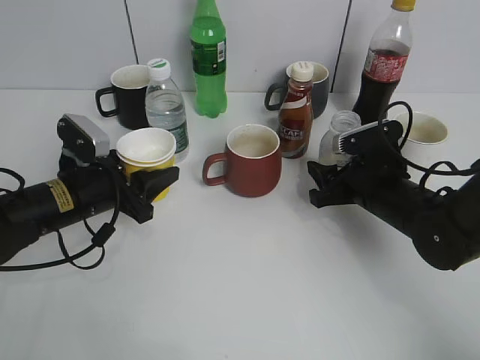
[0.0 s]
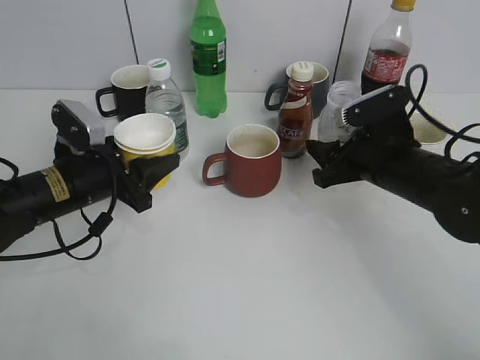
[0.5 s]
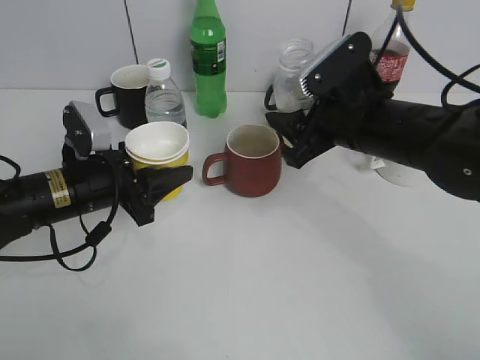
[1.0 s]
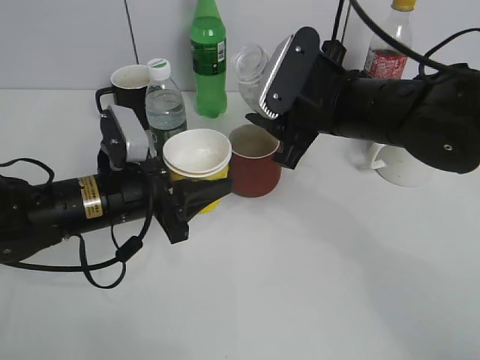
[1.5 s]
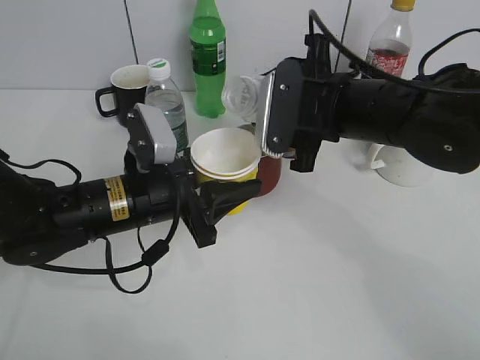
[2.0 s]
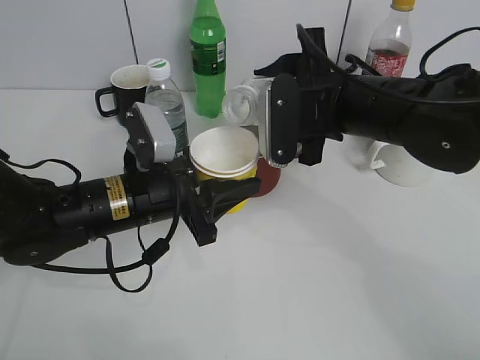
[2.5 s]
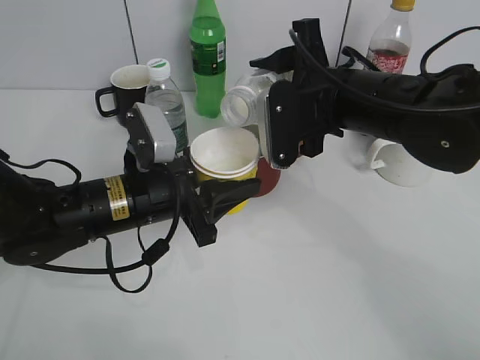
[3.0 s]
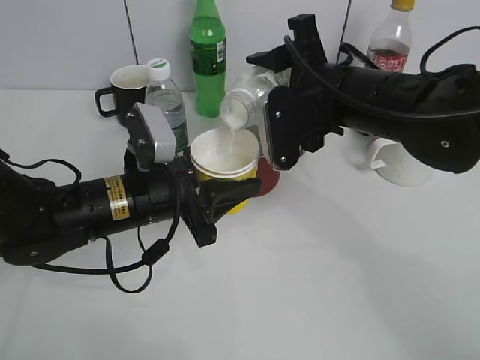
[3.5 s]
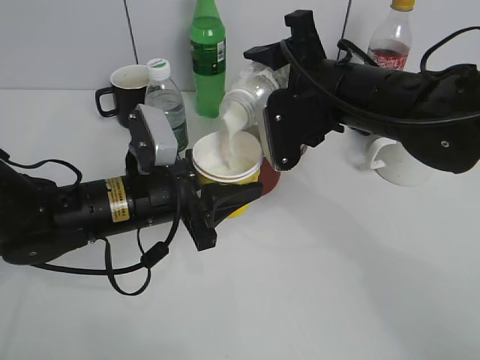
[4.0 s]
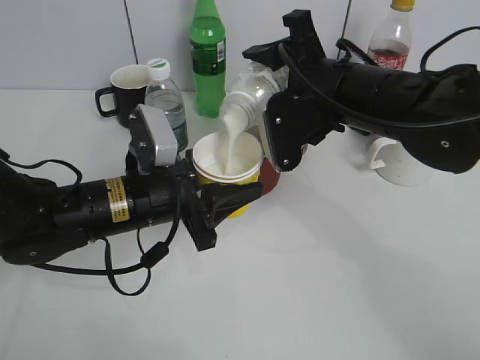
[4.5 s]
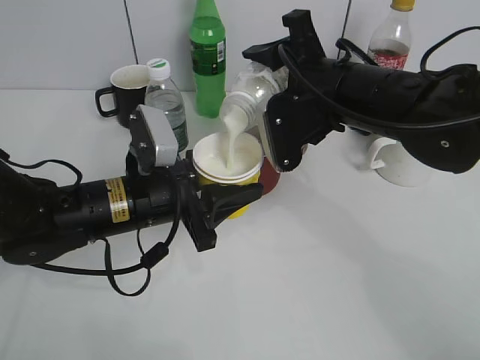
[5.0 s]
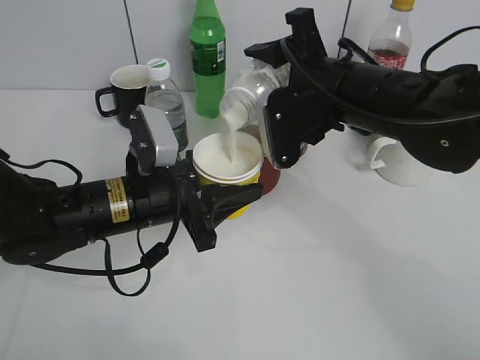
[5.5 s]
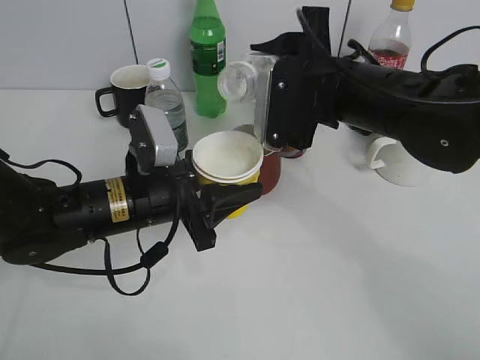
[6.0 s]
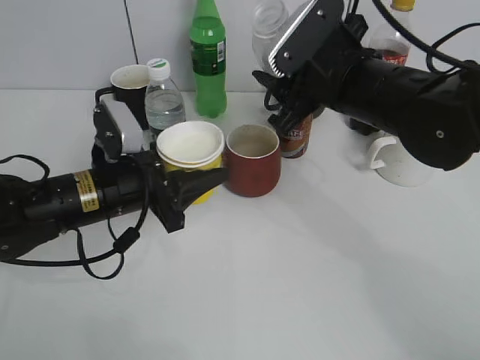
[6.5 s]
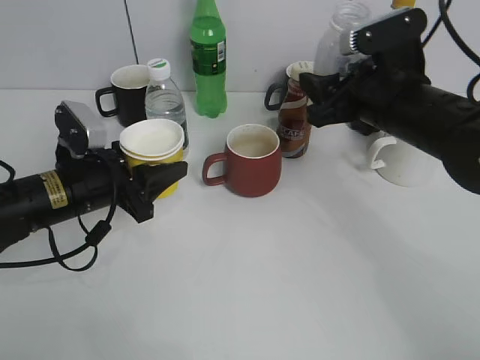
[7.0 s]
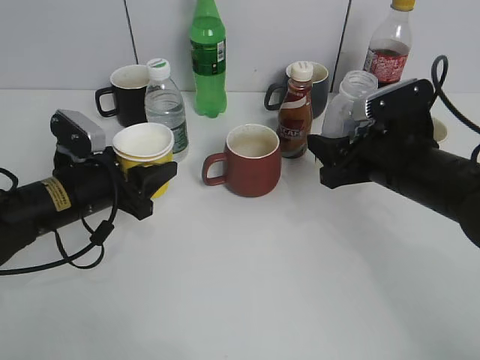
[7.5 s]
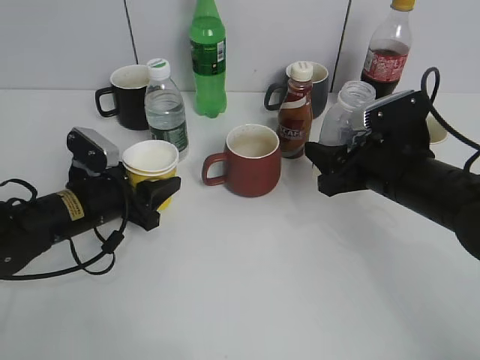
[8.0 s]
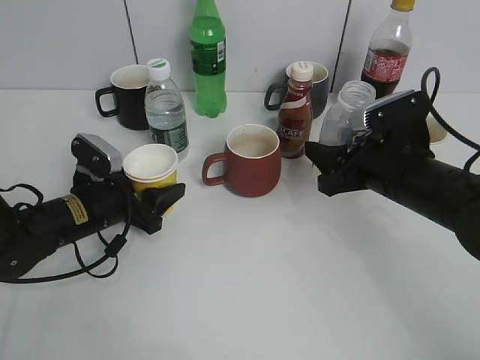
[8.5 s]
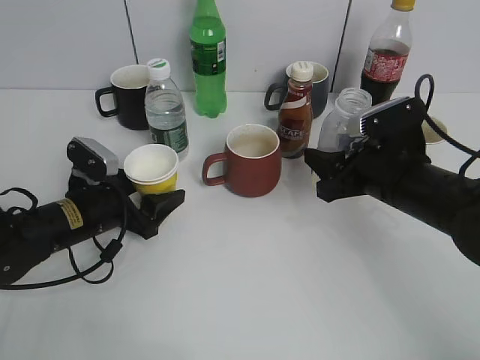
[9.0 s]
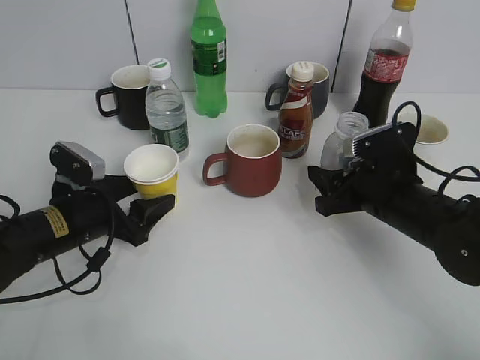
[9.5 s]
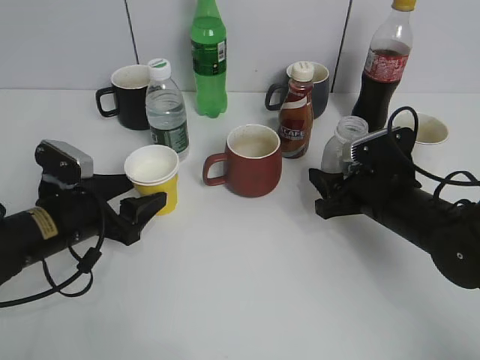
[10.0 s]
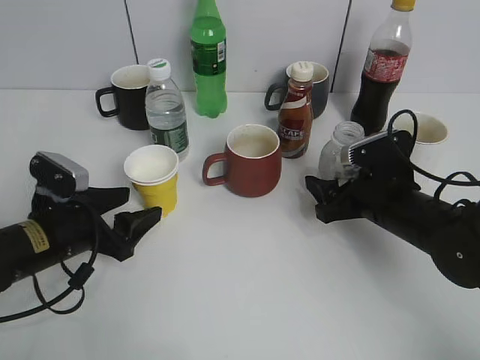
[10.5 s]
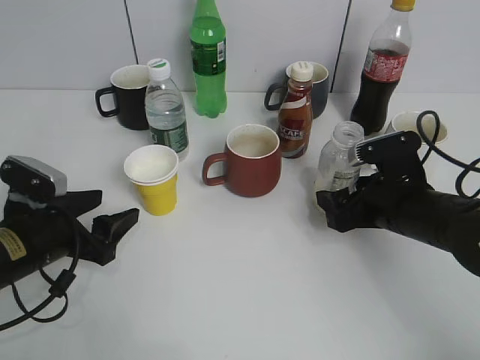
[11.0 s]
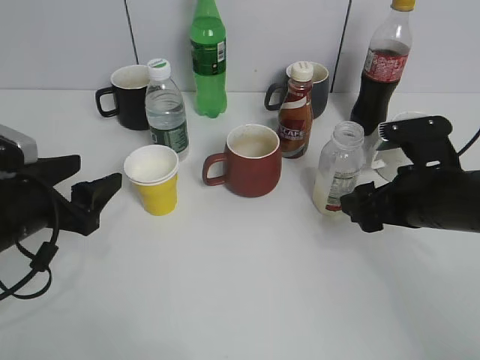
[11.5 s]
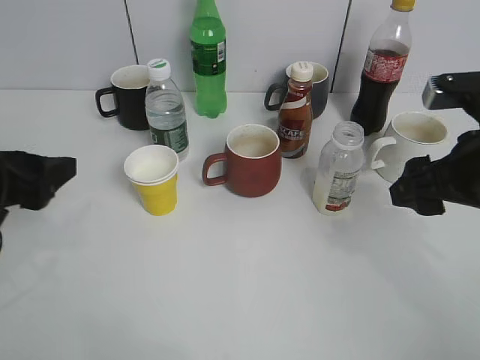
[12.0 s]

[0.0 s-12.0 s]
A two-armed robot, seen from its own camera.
Step, 0.5 to 6.0 s: Pour the yuexian Milk from bottle to cup with right gripper.
Step, 6.5 to 10.5 s: Place the yuexian Milk bottle on the table with right gripper.
0.0 to 2.0 s: The left gripper is displaced to the right by some 10 cm; the right gripper is displaced upward and to the left by roughly 15 cm.
4.0 to 6.0 s: There are only small adjustments of the grippers.
6.0 to 8.0 s: The right gripper moves downward and to the right, approximately 10 cm. Meanwhile the left gripper goes approximately 10 cm to the left and downward.
8.0 to 10.0 s: The right gripper travels downward by about 5 cm, while the left gripper opens up.
10.0 to 12.0 s: The two grippers go approximately 15 cm upward and backward. The right gripper opens up.

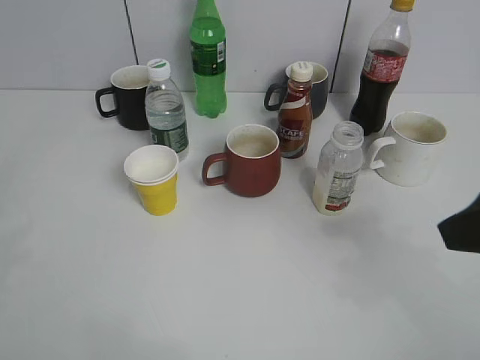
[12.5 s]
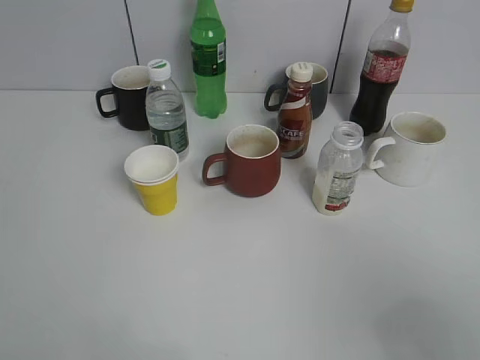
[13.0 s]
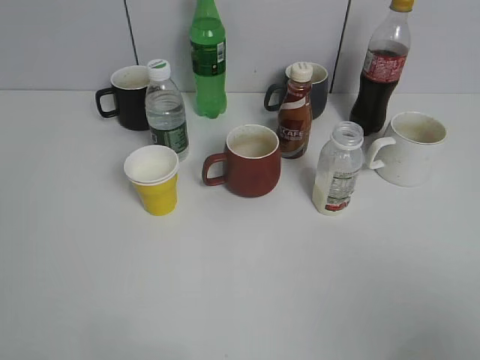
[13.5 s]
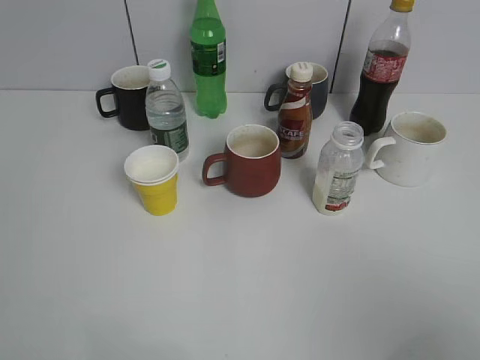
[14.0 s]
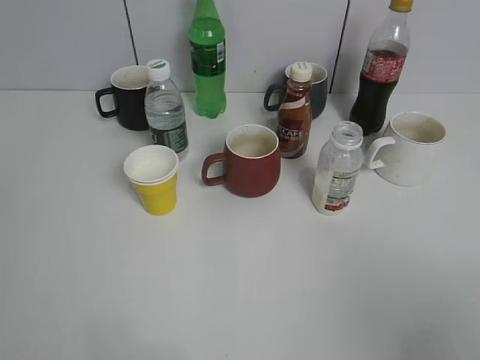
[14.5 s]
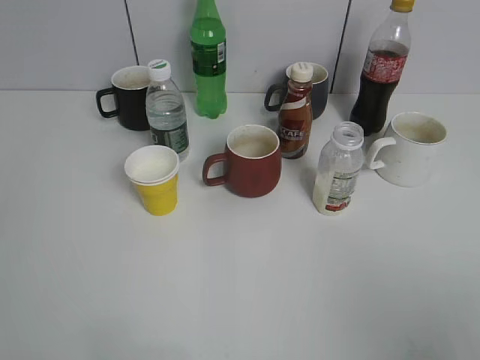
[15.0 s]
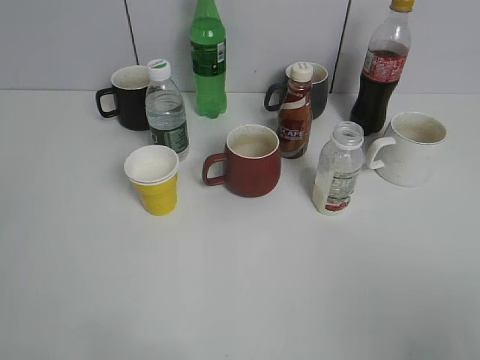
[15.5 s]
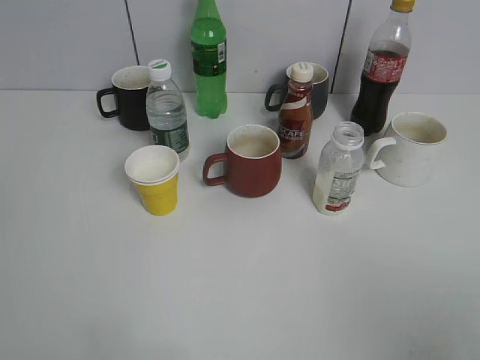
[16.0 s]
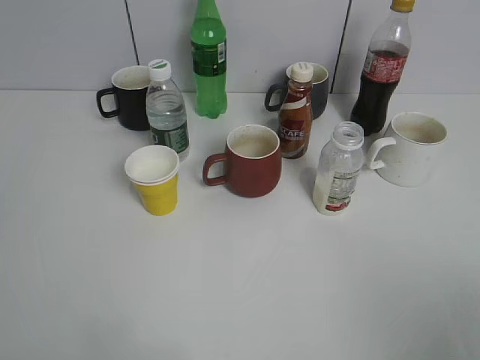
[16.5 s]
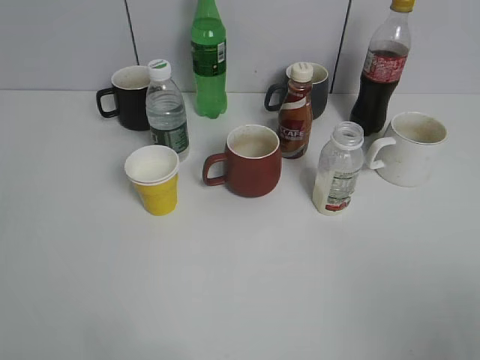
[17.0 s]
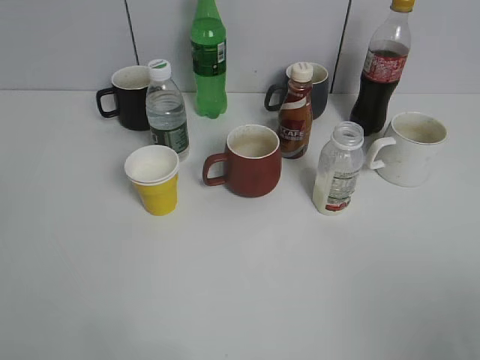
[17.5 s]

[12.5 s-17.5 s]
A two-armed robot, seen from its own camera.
12.5 to 15.0 s: The right gripper shifts about 15 cm backward.

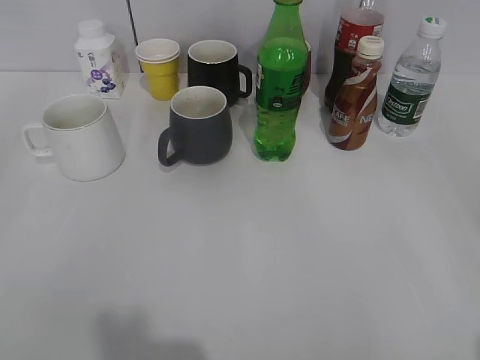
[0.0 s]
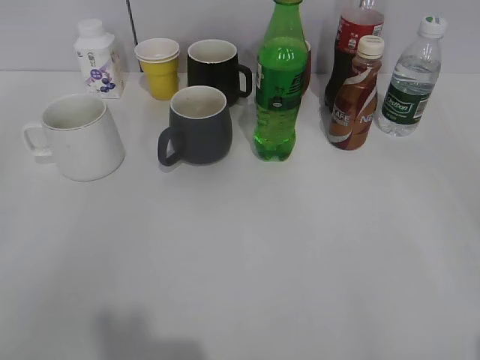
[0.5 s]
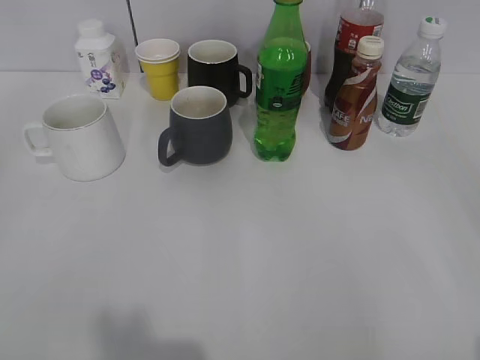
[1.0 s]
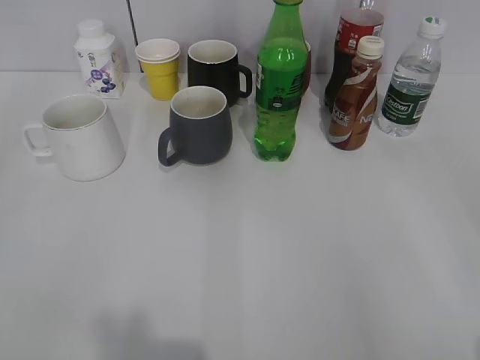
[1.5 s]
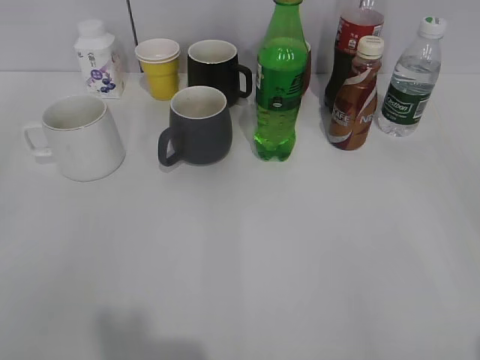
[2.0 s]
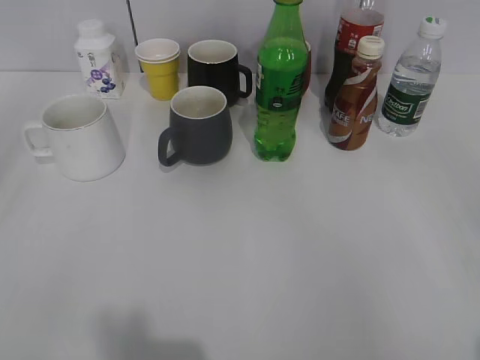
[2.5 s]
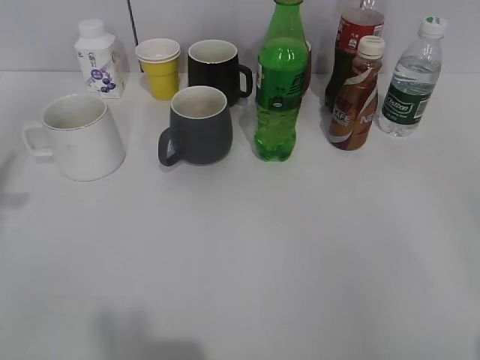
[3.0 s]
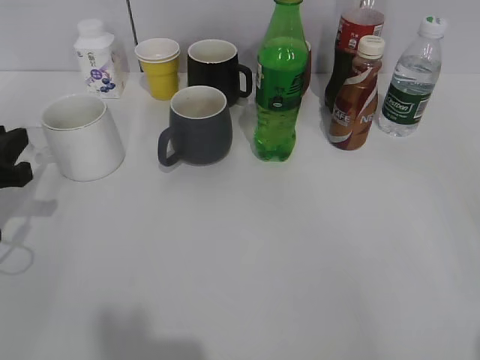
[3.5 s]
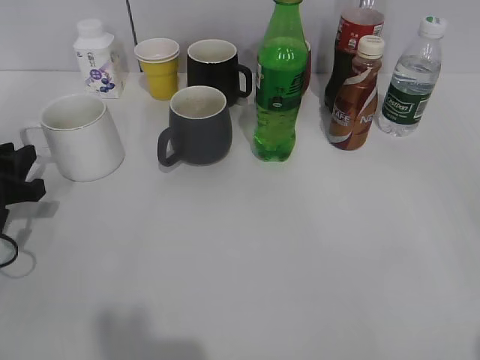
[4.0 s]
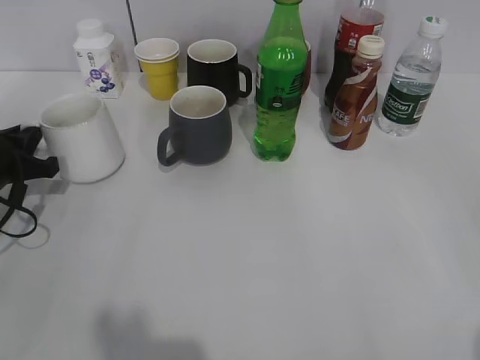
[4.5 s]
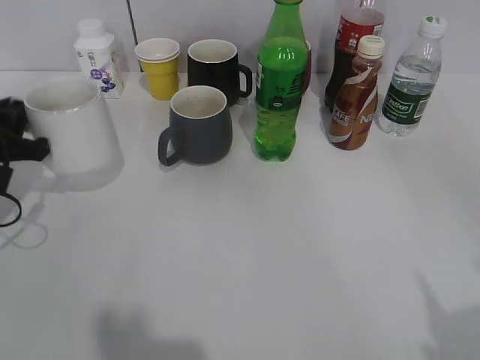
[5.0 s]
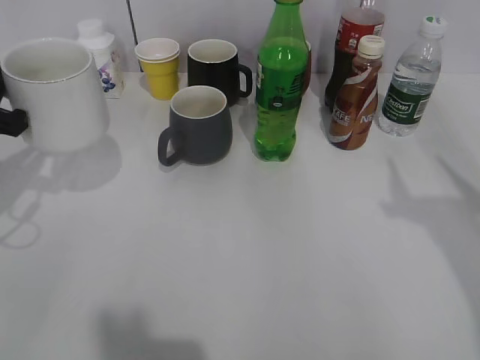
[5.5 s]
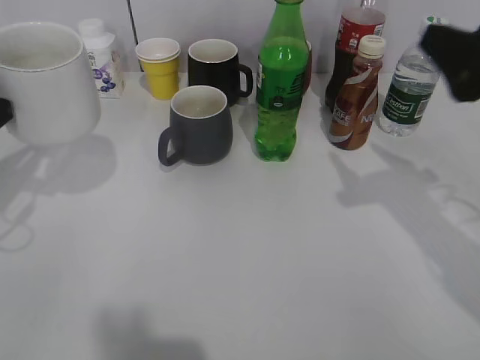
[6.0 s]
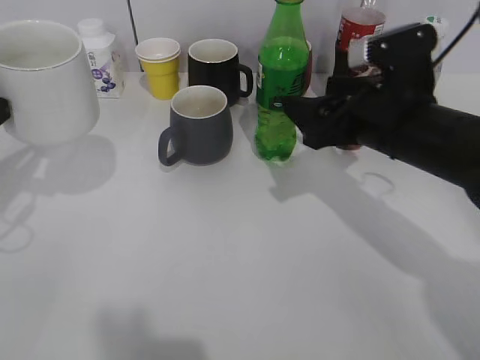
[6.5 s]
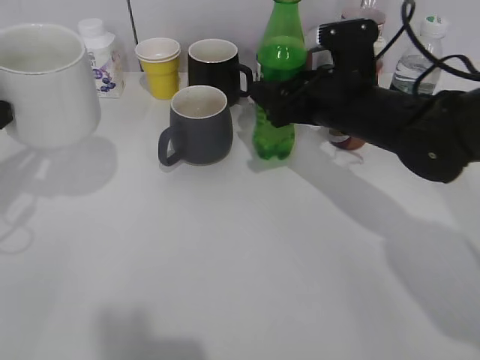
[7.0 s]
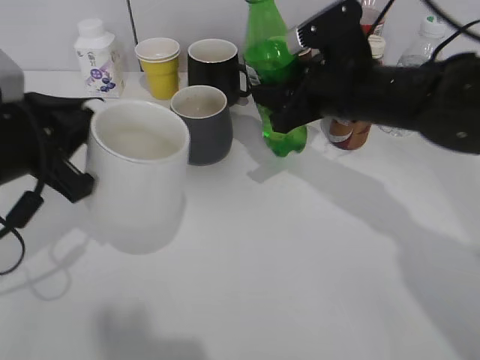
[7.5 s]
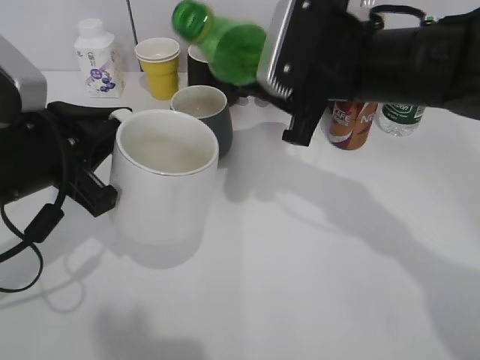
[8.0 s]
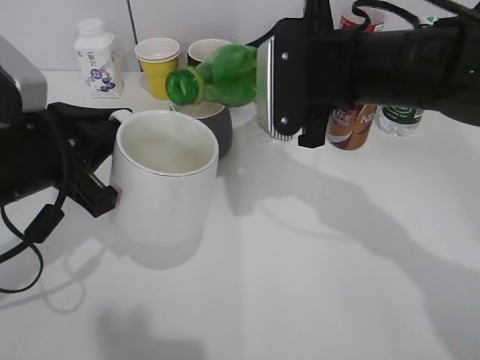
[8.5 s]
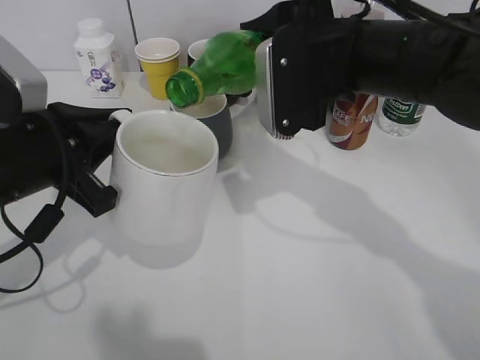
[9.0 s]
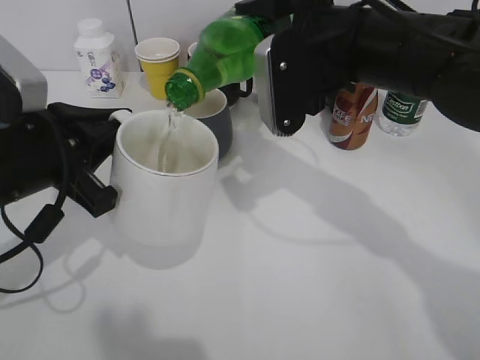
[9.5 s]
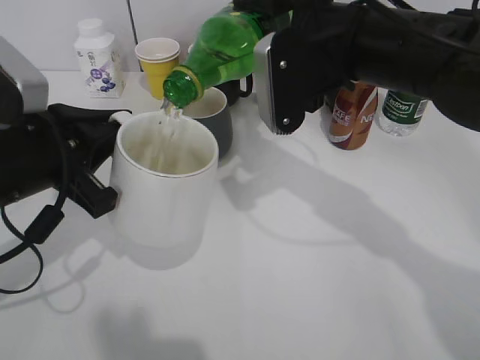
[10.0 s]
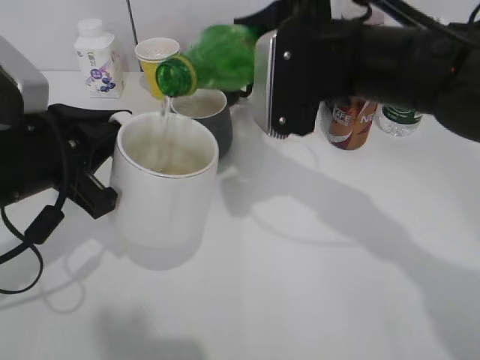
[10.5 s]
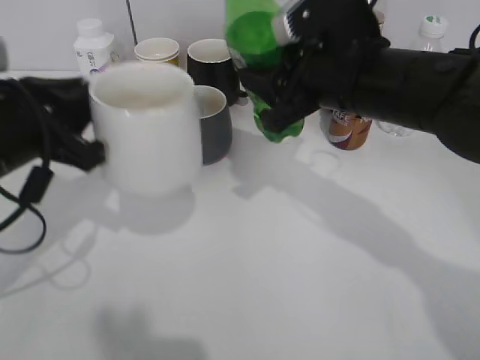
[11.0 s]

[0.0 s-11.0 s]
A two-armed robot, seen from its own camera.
Step, 2.0 to 4.5 s: Grasp the white cup with left gripper.
Step, 5.0 to 6.0 s: Lift the white cup with left gripper.
Step, 6.5 to 7.0 s: Grasp the bottle with sprite with right gripper.
Step, 7.5 to 10.5 s: Pour the sprite from bottle to cup with right gripper.
2.0 to 3.5 s: The left gripper travels forward and downward by some 25 cm.
3.5 to 5.5 s: The left gripper moves upward, about 5 cm, and closes up; the right gripper heads forward and upward, covering some 15 cm.
5.5 to 7.5 s: The right gripper is displaced forward, to the left and downward by about 30 cm, and closes up. The left gripper is displaced to the right by some 5 cm.
7.5 to 9.0 s: The right gripper is displaced upward by approximately 5 cm.
